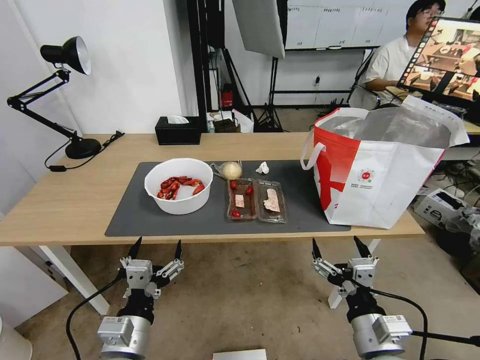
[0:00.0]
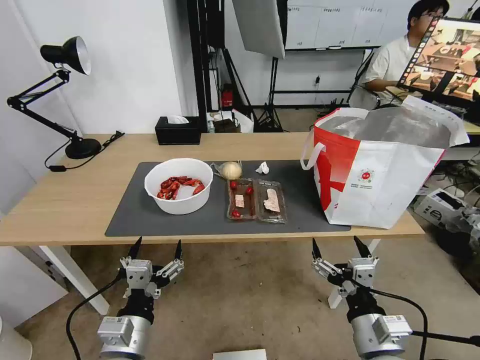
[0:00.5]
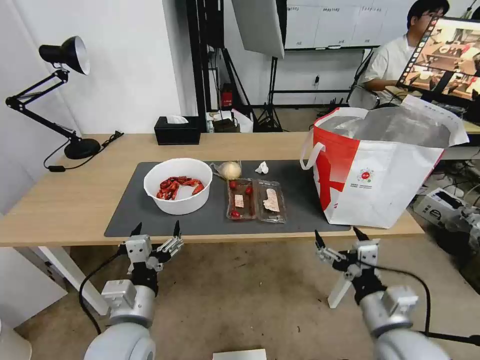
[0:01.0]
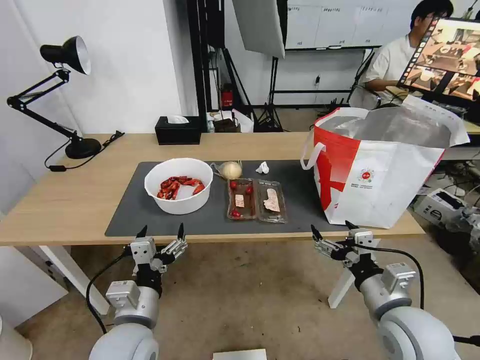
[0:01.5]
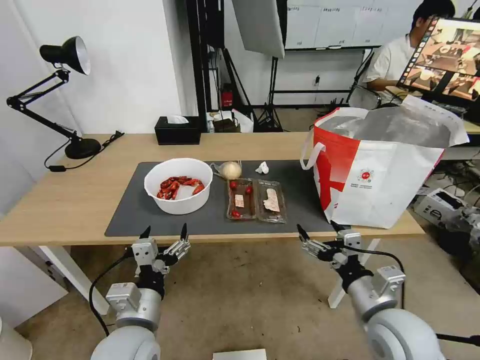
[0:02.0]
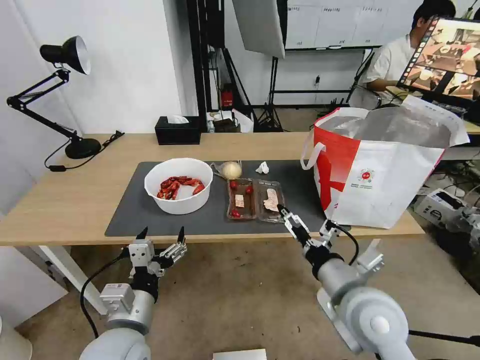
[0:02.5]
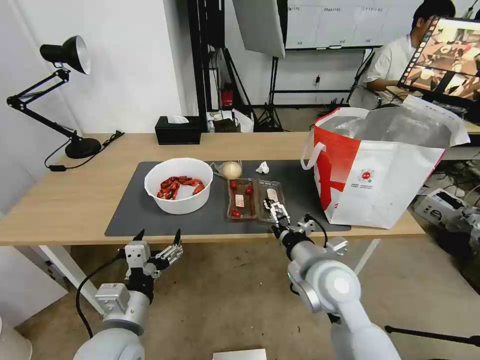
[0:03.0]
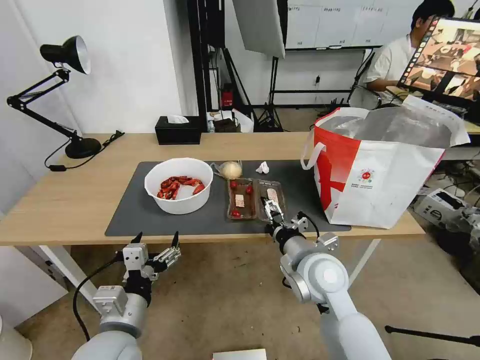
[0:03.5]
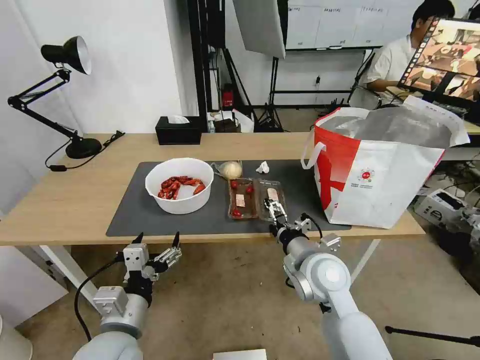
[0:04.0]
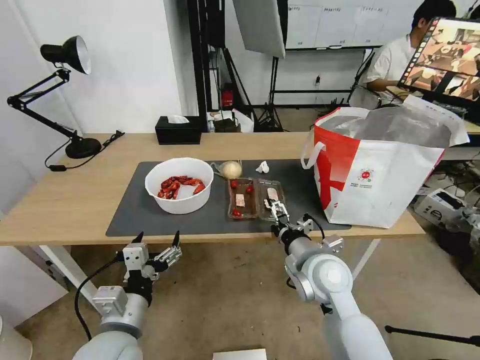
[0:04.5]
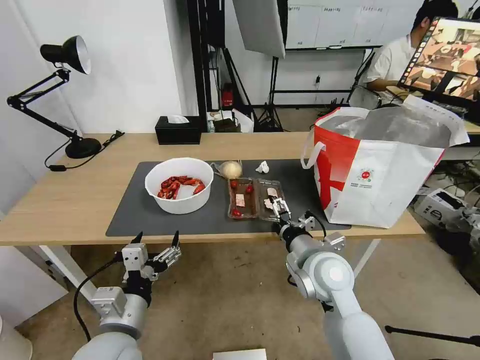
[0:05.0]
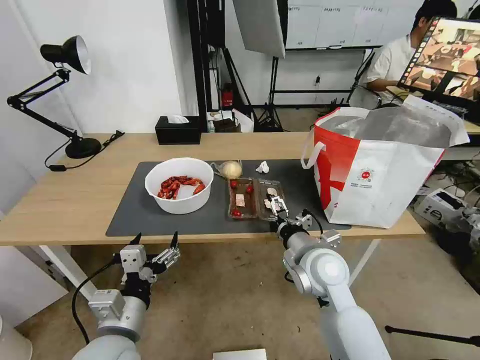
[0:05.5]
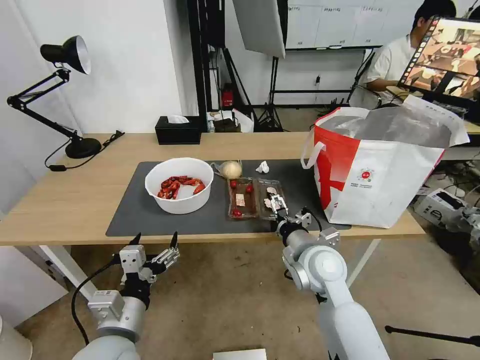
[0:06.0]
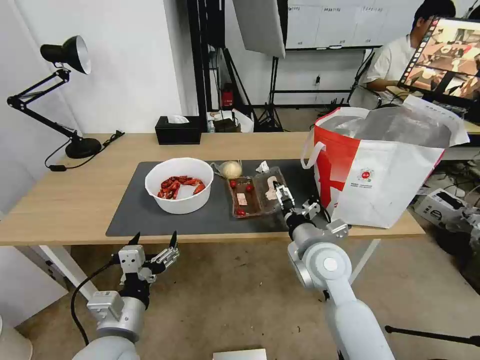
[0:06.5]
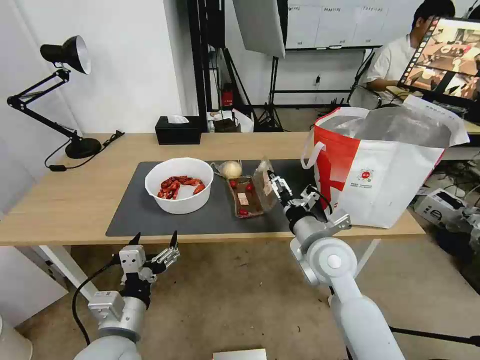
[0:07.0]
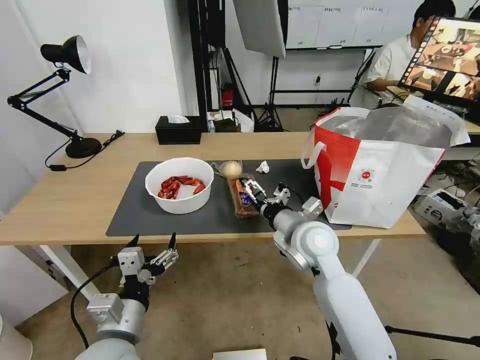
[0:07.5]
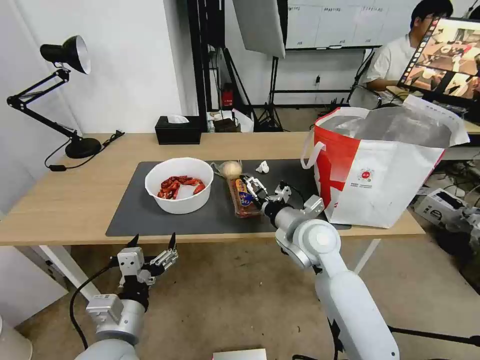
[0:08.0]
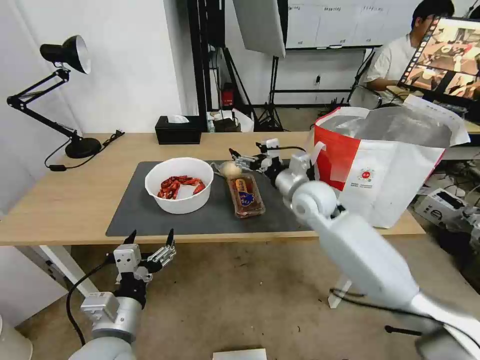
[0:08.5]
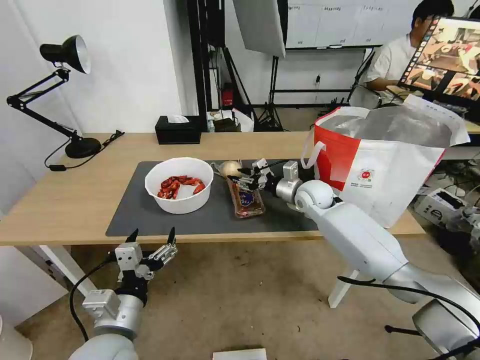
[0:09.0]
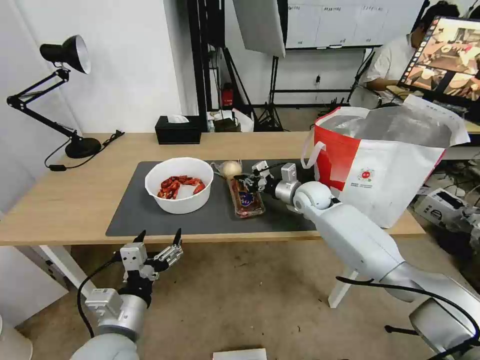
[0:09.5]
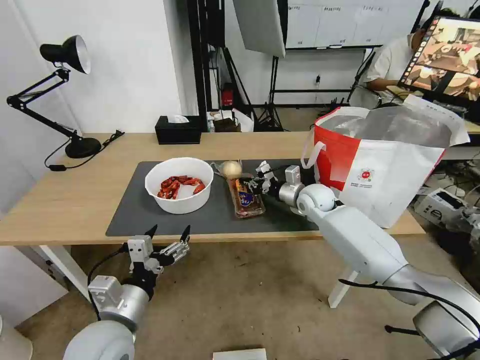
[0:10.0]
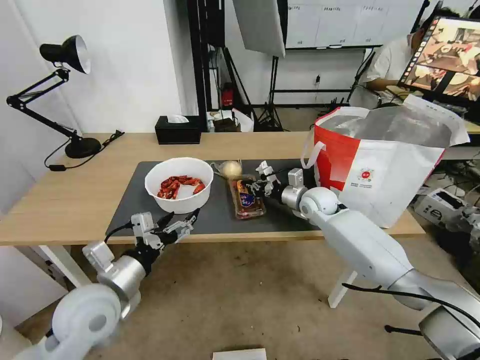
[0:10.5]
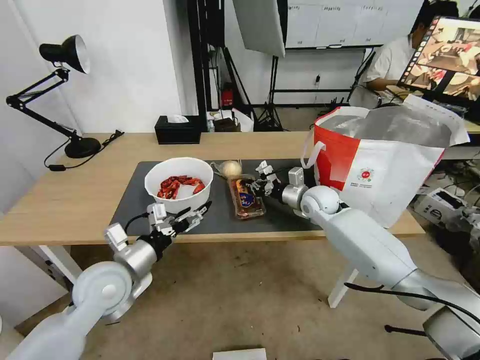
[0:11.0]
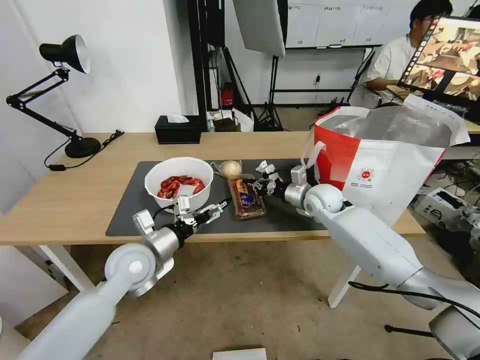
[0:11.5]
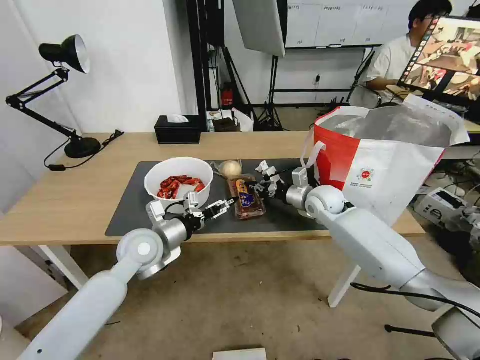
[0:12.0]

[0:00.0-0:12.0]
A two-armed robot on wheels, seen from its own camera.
Task of the whole recording: Pick up the trash from the table and place it into the takeout bag.
2.0 to 4.0 s: The right gripper is displaced forward and to the left by approximately 15 cm.
4.0 to 6.0 s: The grippers make only small movements.
6.0 to 8.0 s: The right gripper changes place by some 5 cm.
8.0 to 10.0 s: The right gripper shifts some 15 cm forward, and closes its fingers.
10.0 to 12.0 s: The left gripper travels forward by some 20 cm.

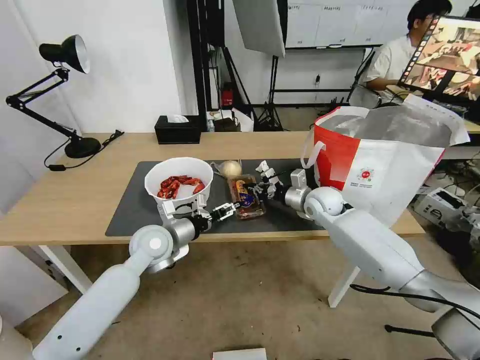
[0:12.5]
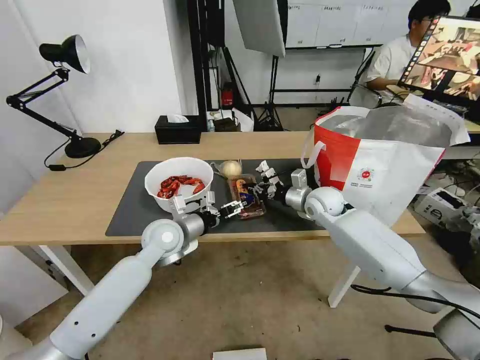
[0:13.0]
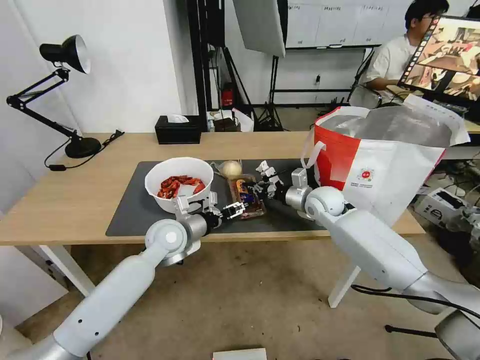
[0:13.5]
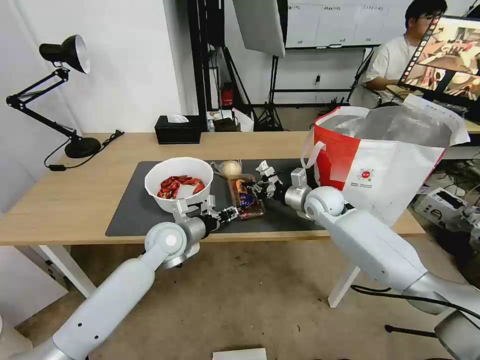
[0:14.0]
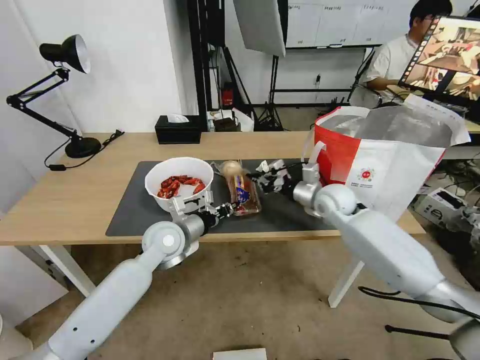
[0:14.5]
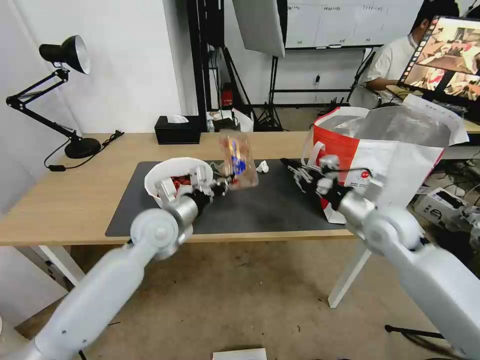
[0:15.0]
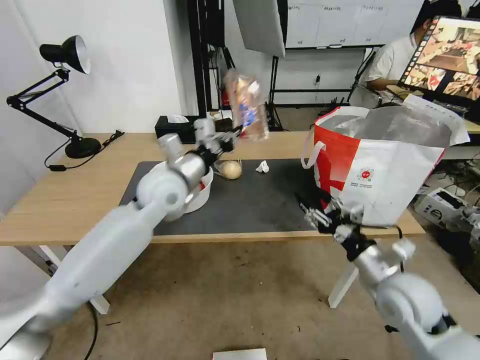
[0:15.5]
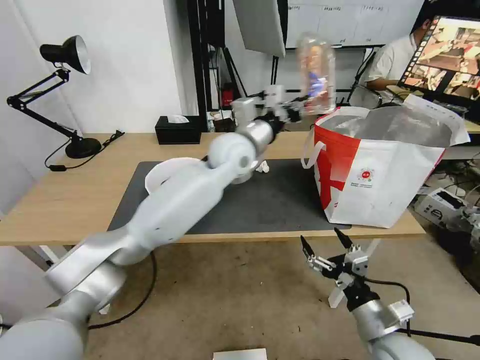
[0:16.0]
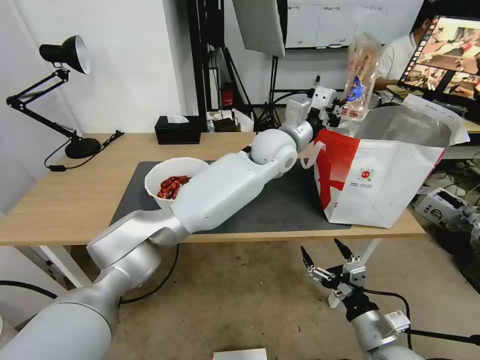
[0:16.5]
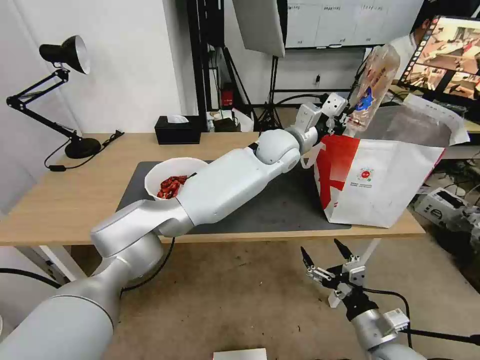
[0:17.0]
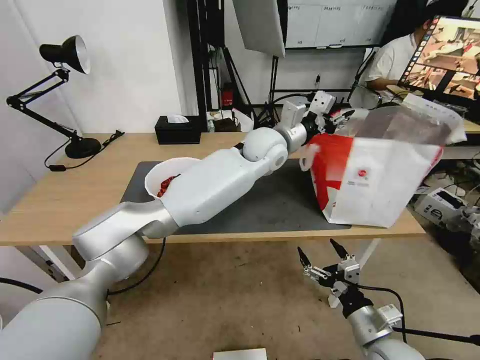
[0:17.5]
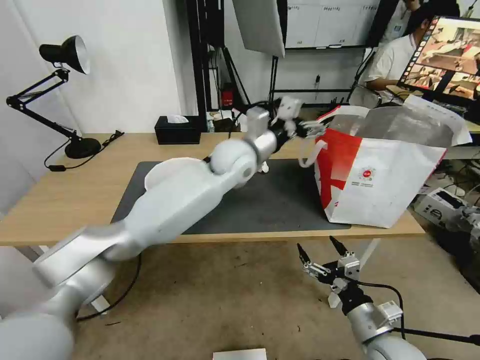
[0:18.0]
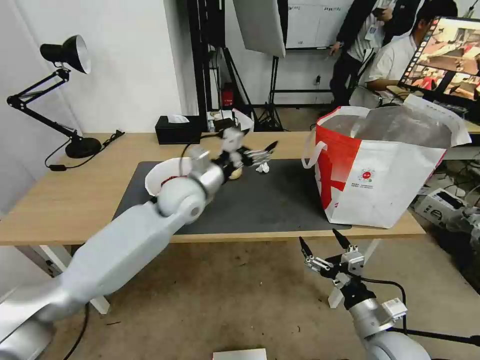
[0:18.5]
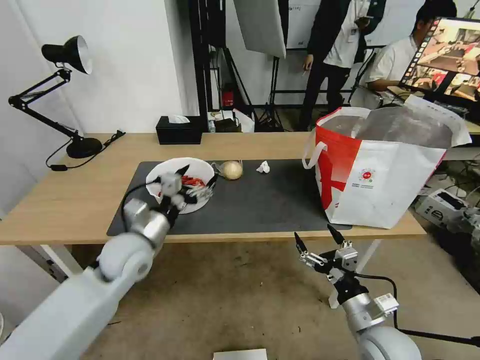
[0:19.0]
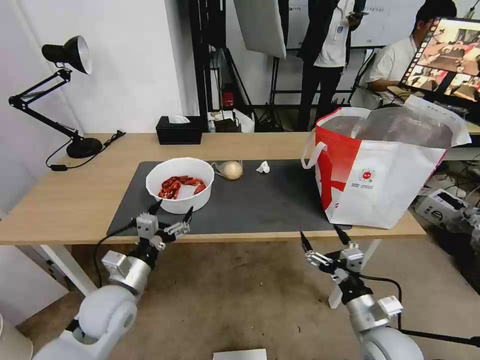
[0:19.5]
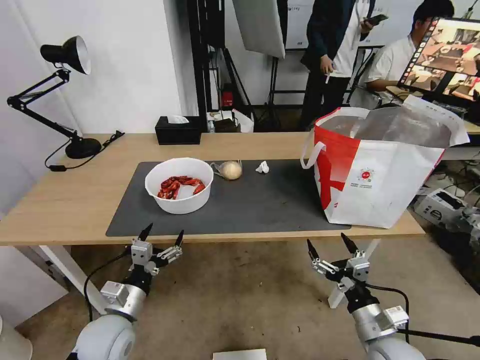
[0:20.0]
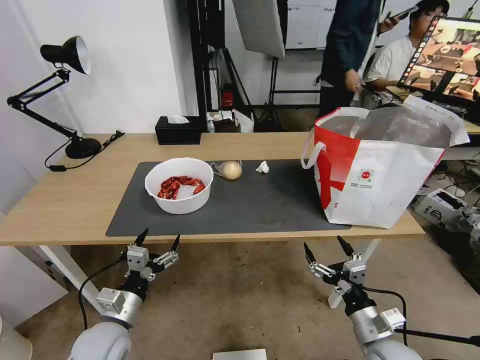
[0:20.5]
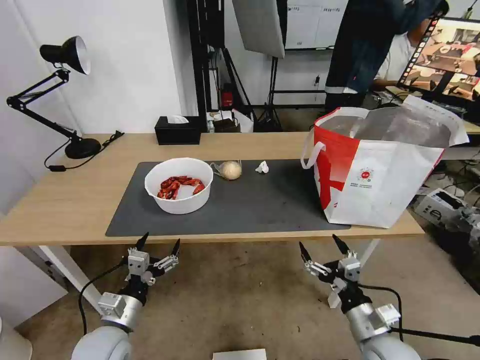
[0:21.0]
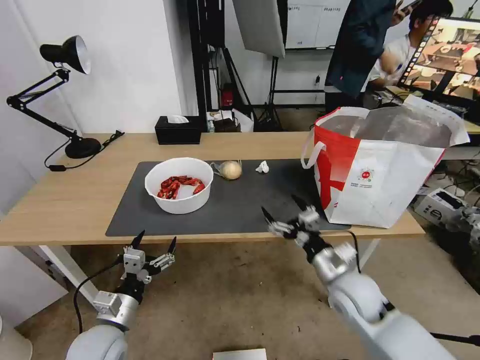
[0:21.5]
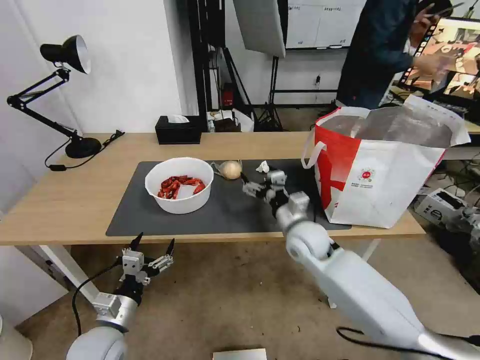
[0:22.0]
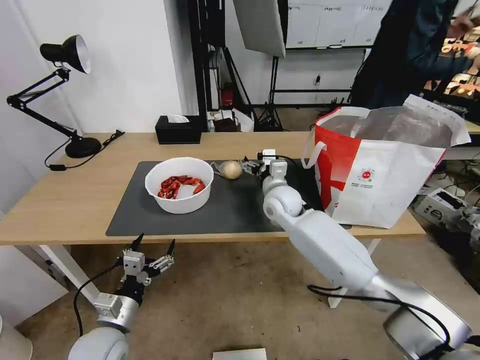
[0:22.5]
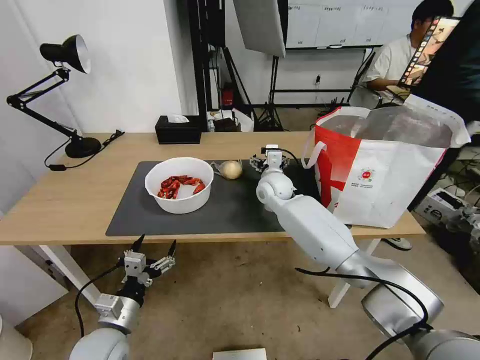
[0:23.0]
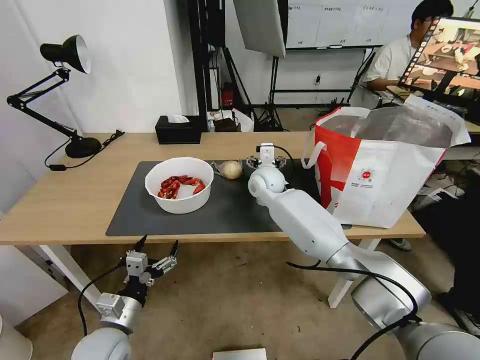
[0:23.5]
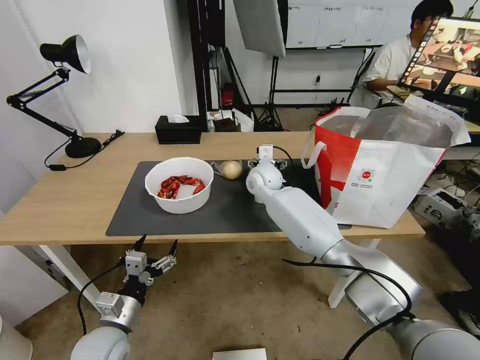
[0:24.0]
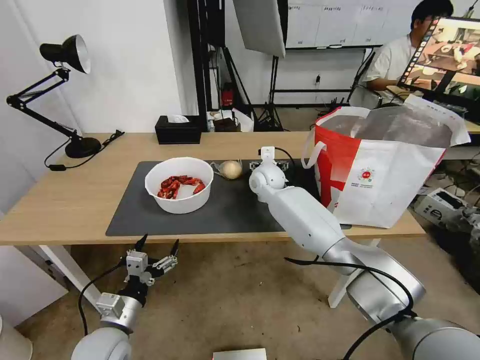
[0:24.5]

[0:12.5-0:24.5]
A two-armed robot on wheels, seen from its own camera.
Task of the whole recording: Pick up the trash from the table and place it into the takeout bag.
12.5 to 14.5 s: The left gripper closes.
14.5 to 16.5 s: The right gripper is displaced backward by some 35 cm, and opens its fingers. The left gripper is displaced to the right, upward and forward by roughly 30 cm.
16.5 to 18.5 s: The left gripper is displaced to the left by some 20 cm, and opens up.
18.5 to 20.5 s: The left gripper shifts some 35 cm backward, downward and to the left.
20.5 to 22.5 s: The right gripper heads forward and to the left, covering some 40 cm.
22.5 to 24.5 s: The right gripper heads forward, covering roughly 5 cm.

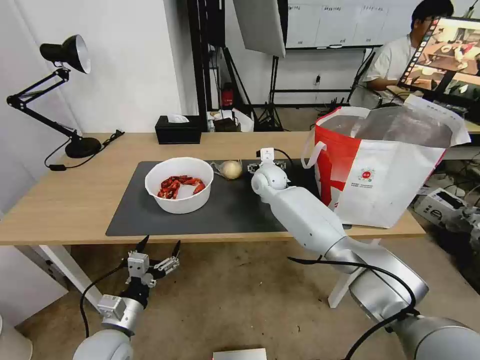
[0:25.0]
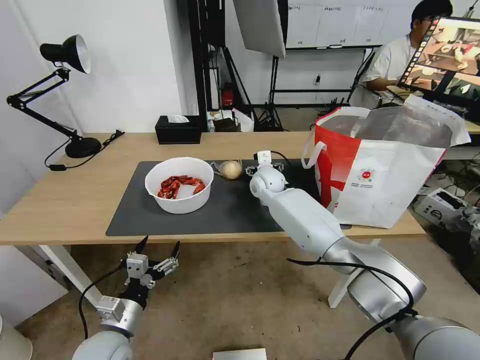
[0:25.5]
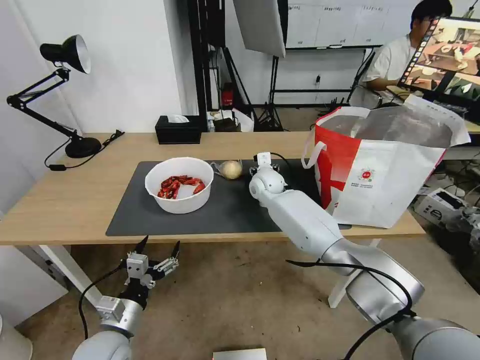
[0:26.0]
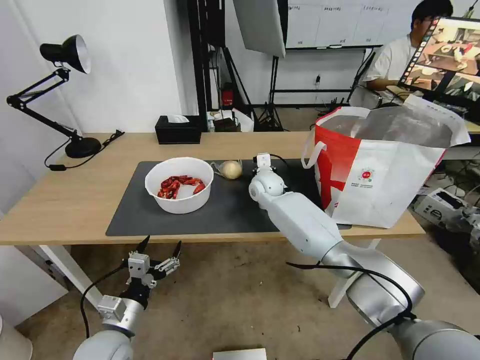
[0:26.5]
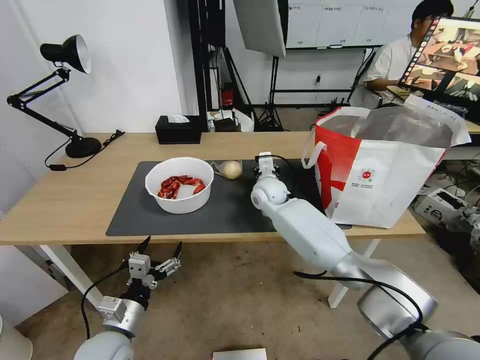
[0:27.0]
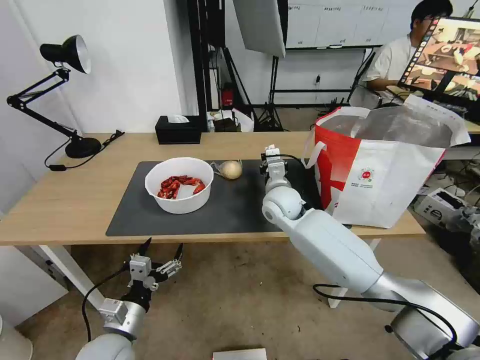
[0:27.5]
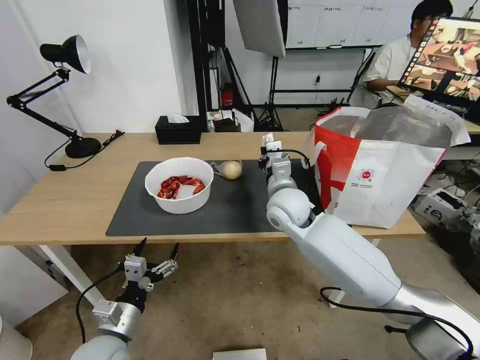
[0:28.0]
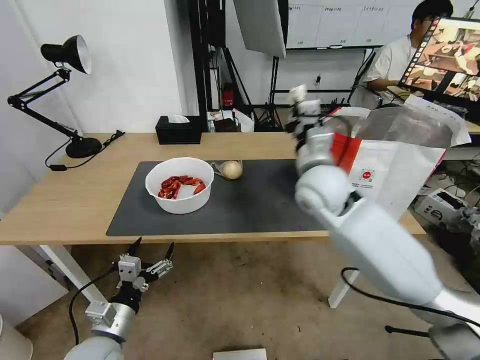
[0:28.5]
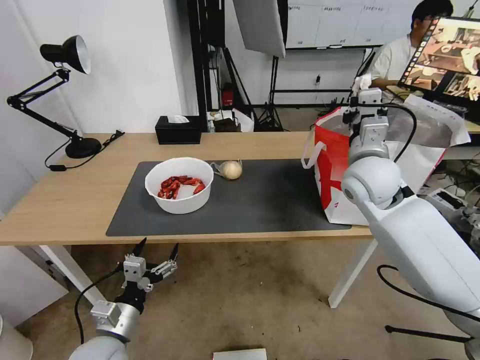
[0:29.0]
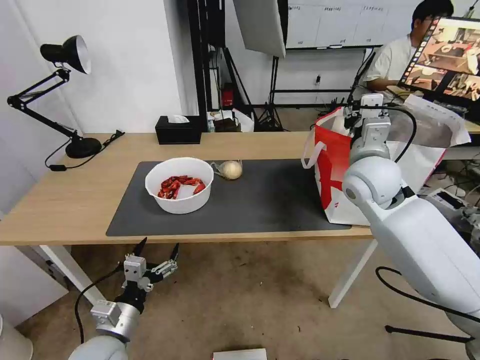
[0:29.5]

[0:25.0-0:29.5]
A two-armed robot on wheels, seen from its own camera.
Task of the whole recording: Pick up the trash from the table and place it into the takeout bag.
25.0 to 27.0 s: The right gripper closes.
27.0 to 29.5 s: The right gripper moves to the right, upward and backward, roughly 25 cm, and opens up.
